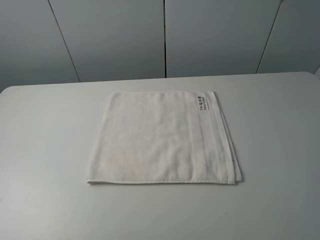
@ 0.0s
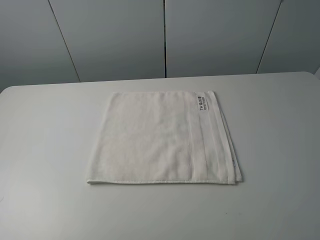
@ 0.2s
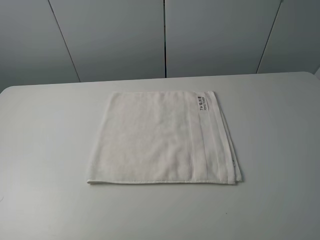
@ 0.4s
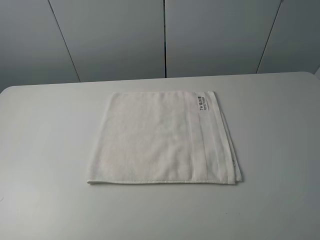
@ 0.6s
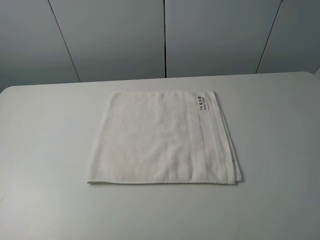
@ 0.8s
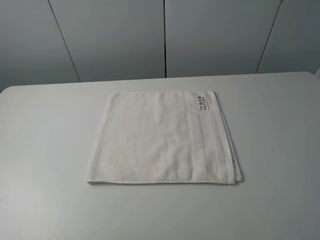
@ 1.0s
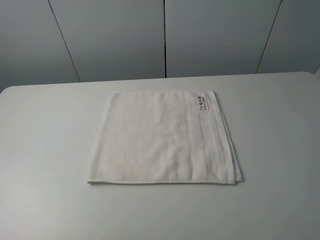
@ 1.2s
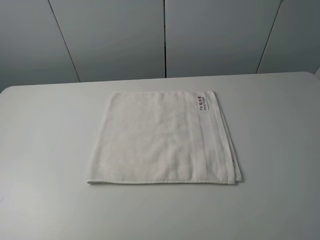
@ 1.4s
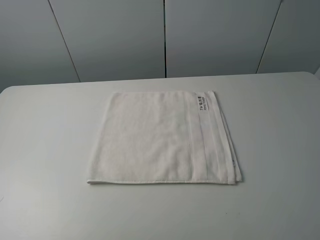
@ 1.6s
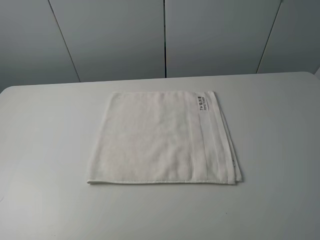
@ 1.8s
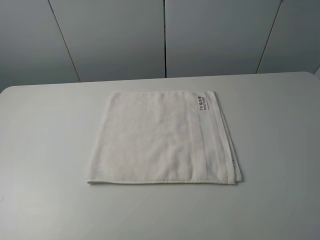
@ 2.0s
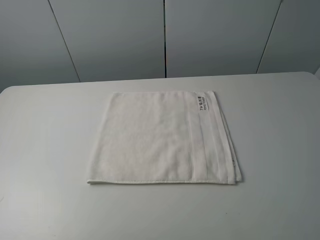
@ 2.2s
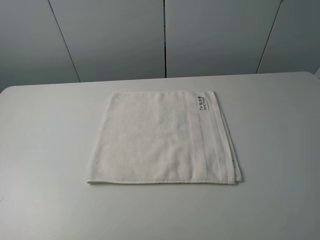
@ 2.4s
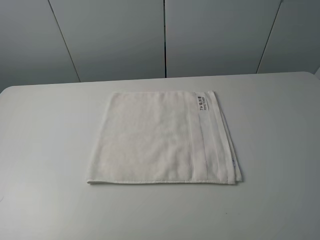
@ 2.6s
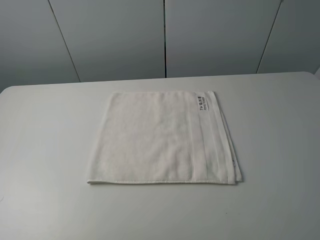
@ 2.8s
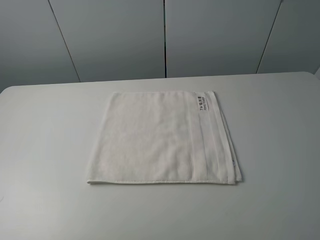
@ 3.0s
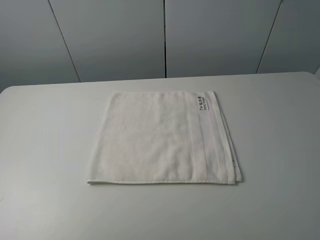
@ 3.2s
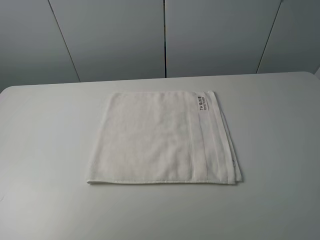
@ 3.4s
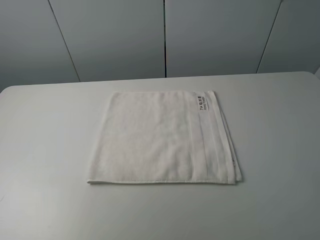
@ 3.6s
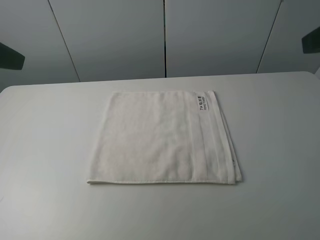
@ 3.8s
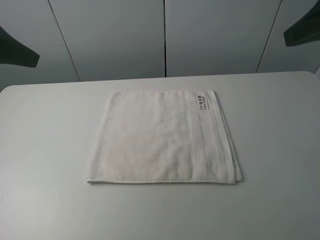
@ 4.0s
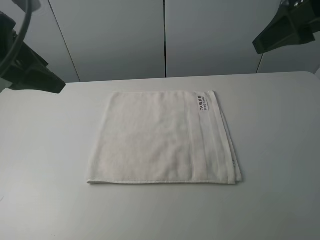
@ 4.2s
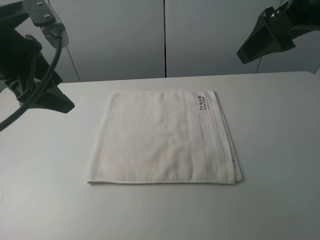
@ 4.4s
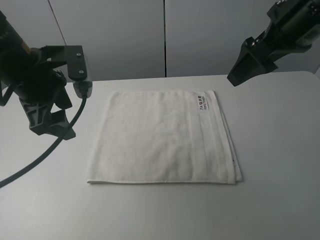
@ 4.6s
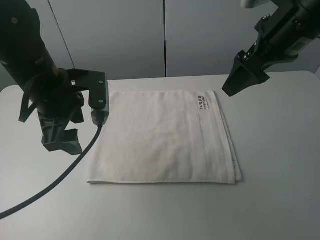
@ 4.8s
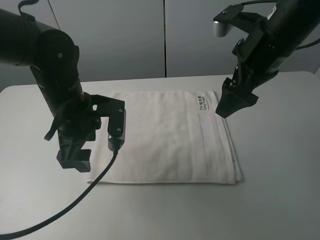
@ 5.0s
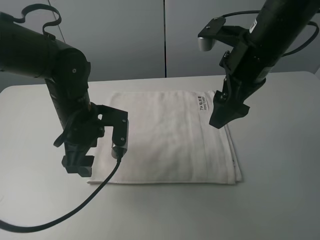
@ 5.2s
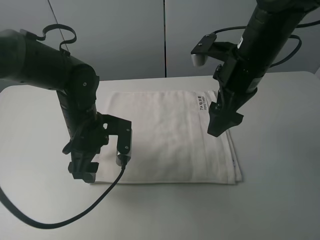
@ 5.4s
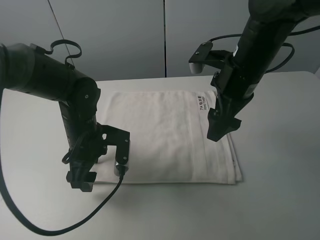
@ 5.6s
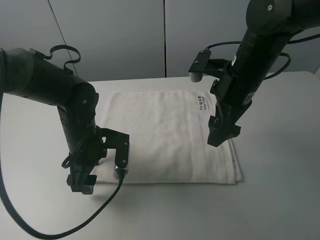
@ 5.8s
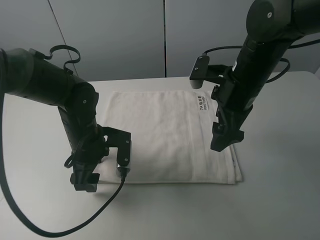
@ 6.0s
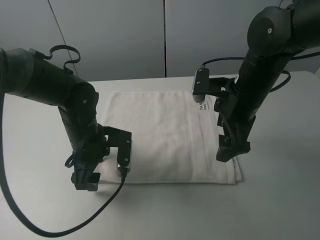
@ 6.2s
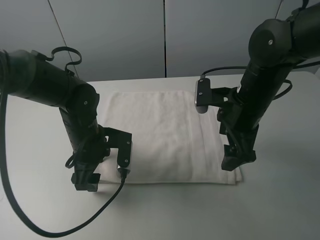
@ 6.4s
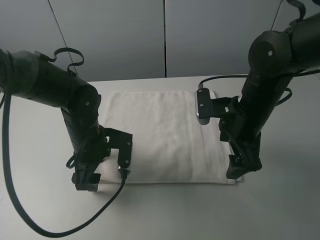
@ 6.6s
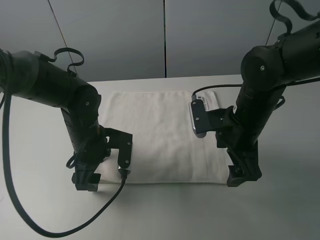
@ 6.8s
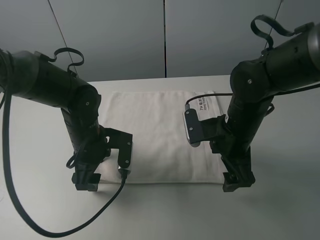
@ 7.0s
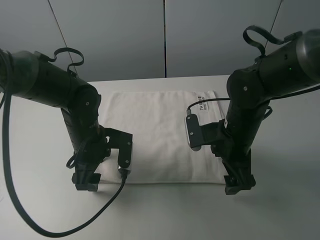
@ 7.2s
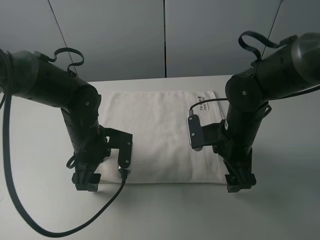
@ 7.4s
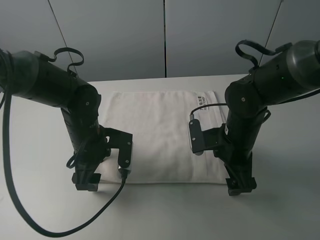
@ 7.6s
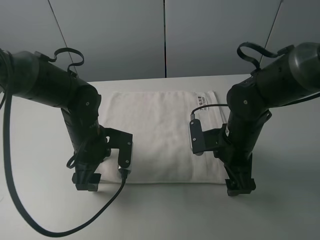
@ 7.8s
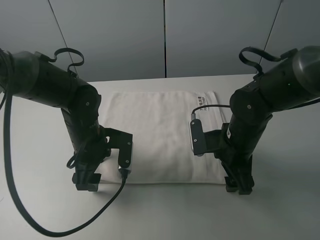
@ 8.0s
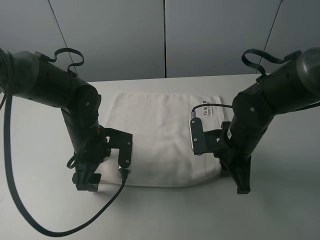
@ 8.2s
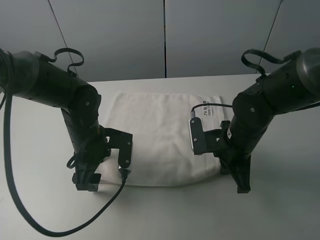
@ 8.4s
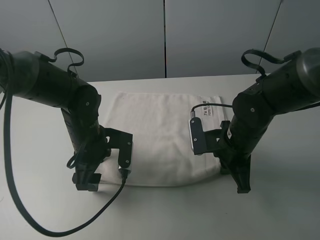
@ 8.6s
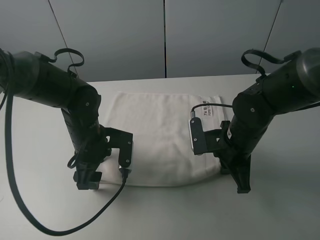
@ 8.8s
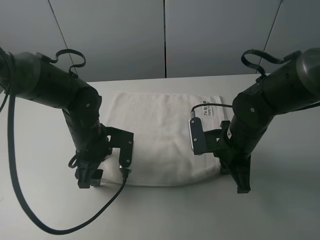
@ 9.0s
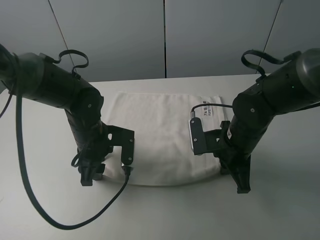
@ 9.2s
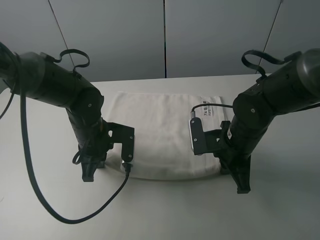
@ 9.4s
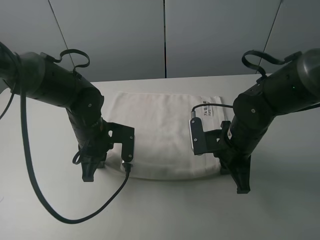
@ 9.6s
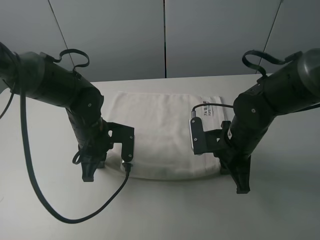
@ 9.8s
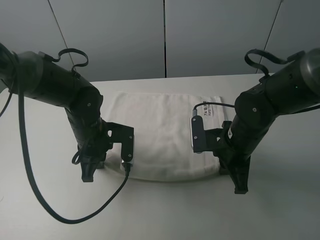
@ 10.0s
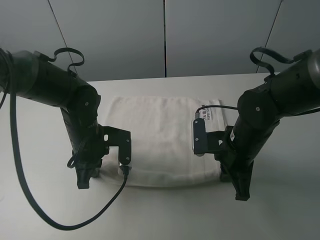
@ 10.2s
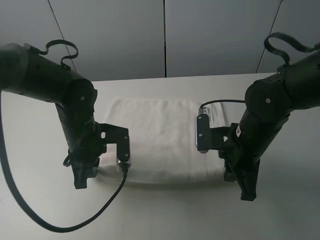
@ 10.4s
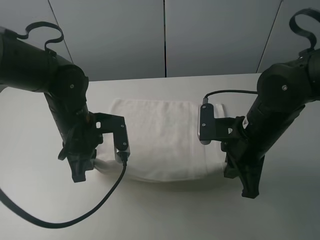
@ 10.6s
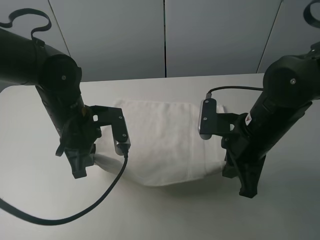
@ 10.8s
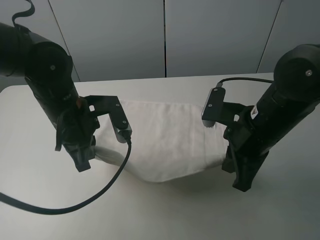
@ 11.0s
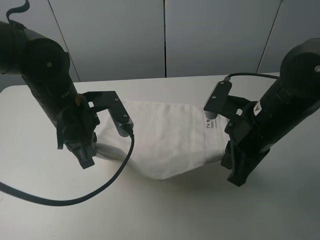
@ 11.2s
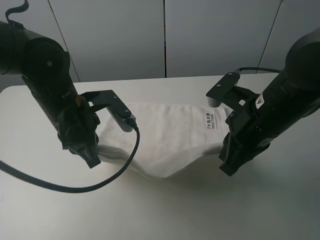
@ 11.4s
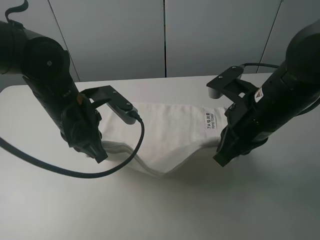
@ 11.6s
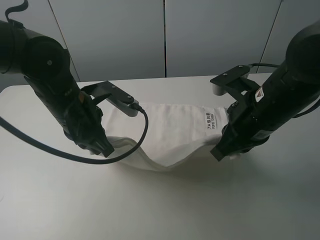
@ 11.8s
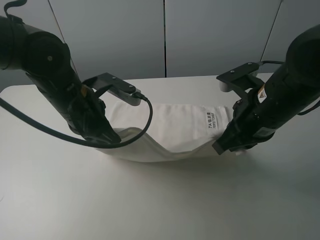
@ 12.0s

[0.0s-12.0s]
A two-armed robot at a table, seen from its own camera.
Task of the whole recording: fold the towels on the table.
Step, 0.0s to 8.8s: Grasp the white towel with the right gripper.
Step, 9.0s to 9.4s: Grasp the white towel with the left gripper.
0.0s to 1.6s: The two grippers keep their place.
3.0s to 4.4s: The right gripper shifts approximately 25 cm forward. Meanwhile the left gripper travels forward and to the right by about 25 cm.
4.4s to 6.0s: The left gripper moves downward, approximately 20 cm, while the right gripper shifts approximately 15 cm downward and to the left.
6.0s to 7.6s: The right gripper shifts some 10 cm downward.
7.6s to 9.0s: The right gripper closes up.
9.0s to 10.4s: The left gripper closes its fingers.
10.4s to 12.0s: The two grippers go roughly 5 cm upward.

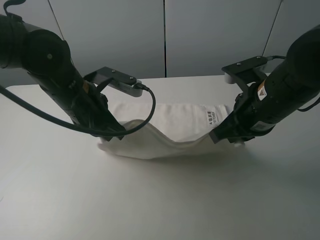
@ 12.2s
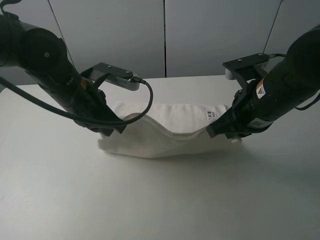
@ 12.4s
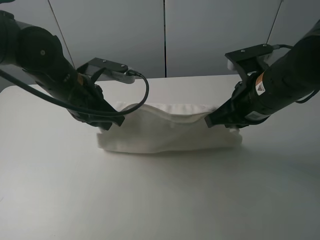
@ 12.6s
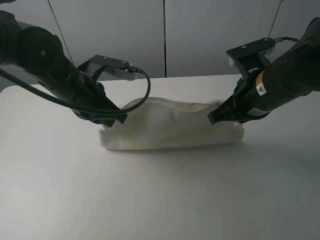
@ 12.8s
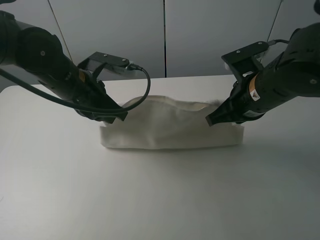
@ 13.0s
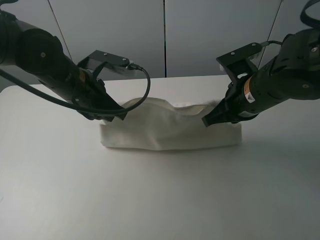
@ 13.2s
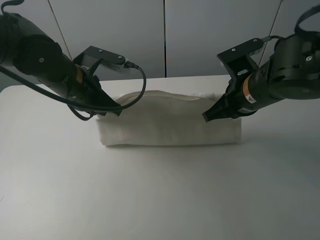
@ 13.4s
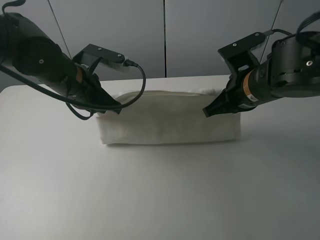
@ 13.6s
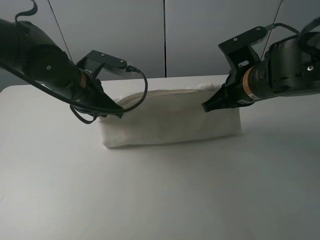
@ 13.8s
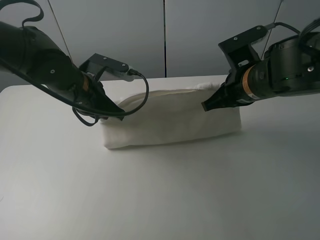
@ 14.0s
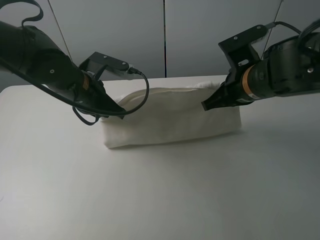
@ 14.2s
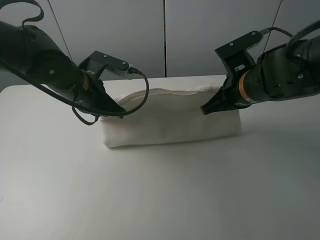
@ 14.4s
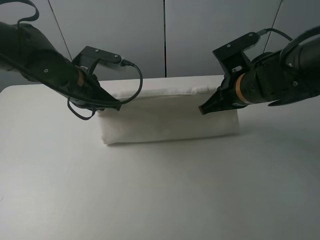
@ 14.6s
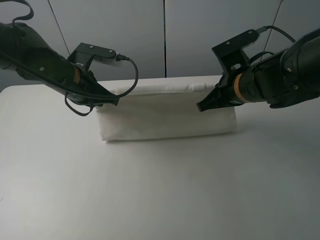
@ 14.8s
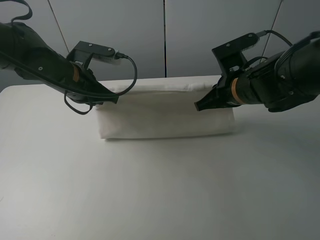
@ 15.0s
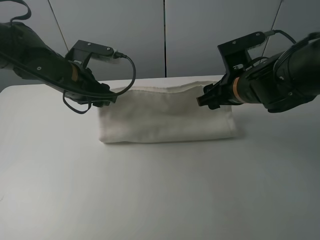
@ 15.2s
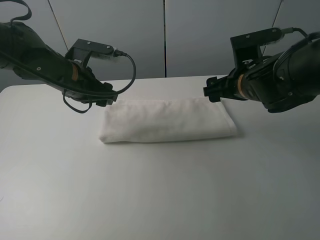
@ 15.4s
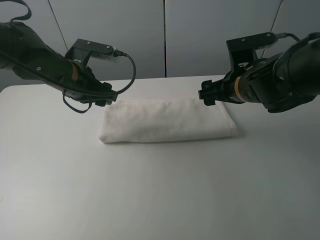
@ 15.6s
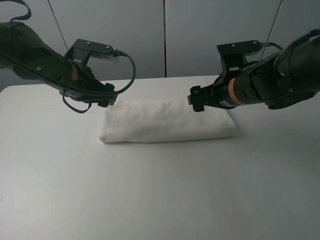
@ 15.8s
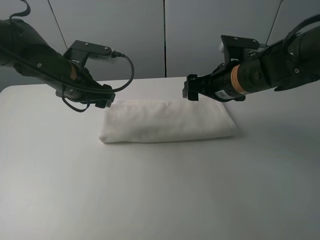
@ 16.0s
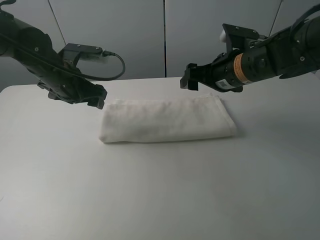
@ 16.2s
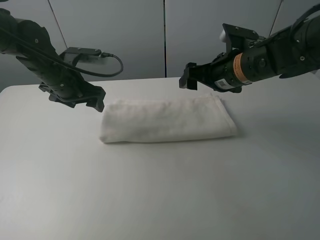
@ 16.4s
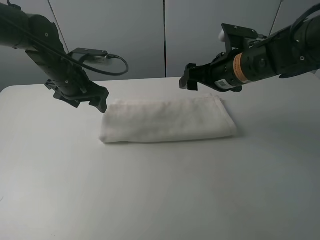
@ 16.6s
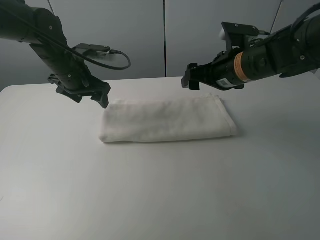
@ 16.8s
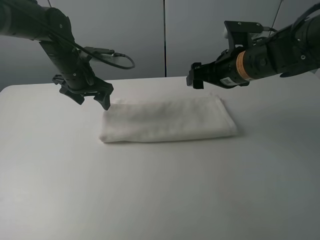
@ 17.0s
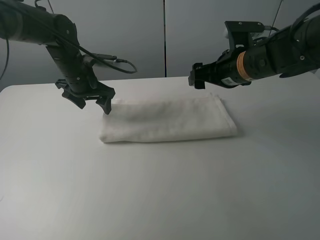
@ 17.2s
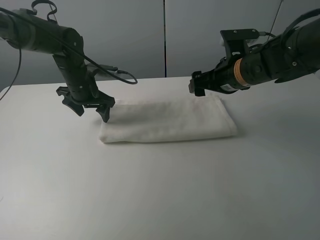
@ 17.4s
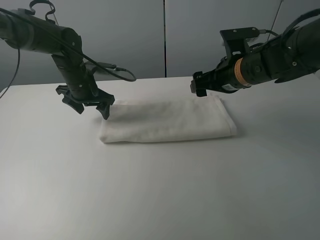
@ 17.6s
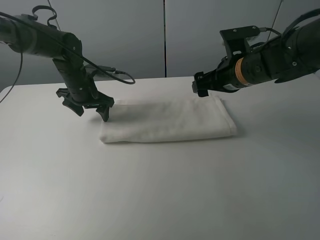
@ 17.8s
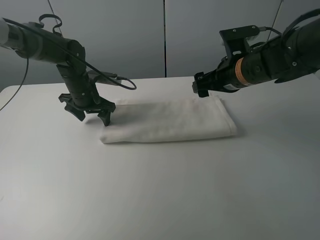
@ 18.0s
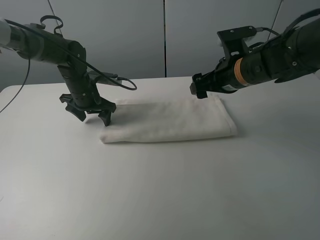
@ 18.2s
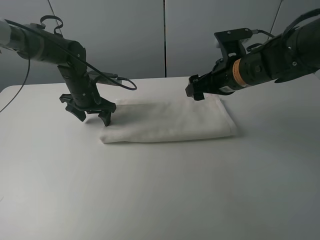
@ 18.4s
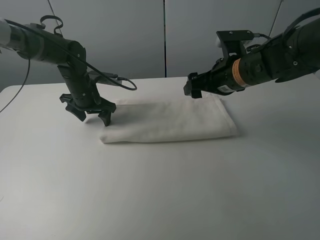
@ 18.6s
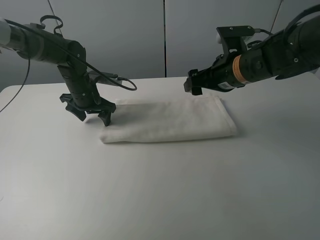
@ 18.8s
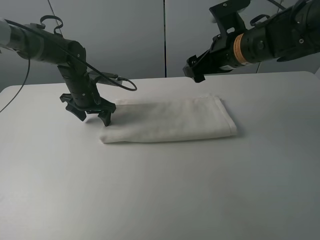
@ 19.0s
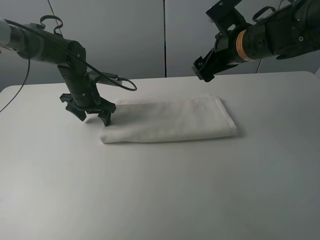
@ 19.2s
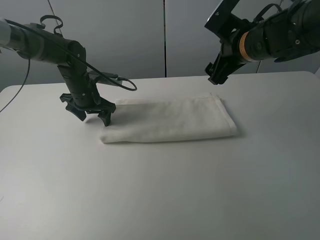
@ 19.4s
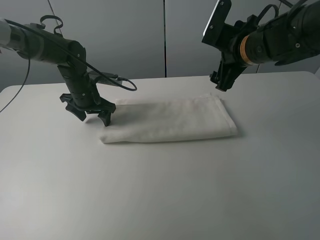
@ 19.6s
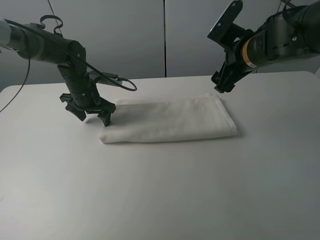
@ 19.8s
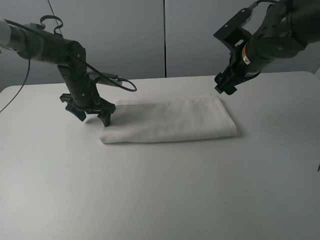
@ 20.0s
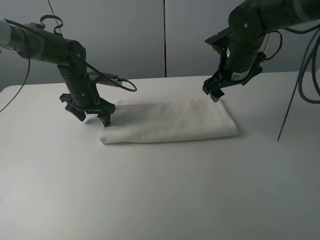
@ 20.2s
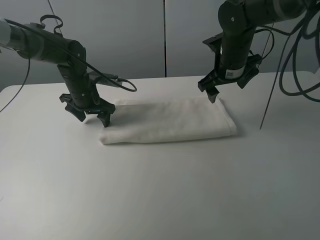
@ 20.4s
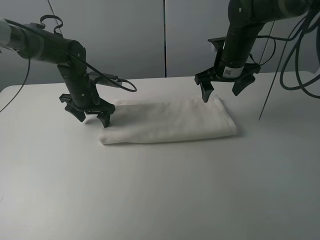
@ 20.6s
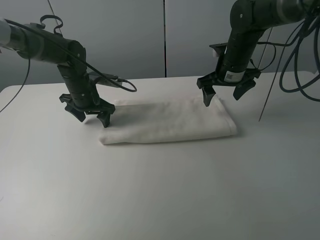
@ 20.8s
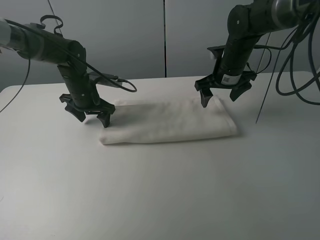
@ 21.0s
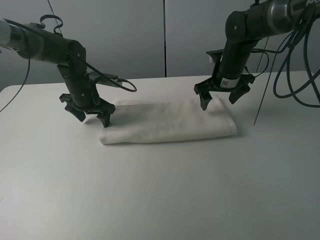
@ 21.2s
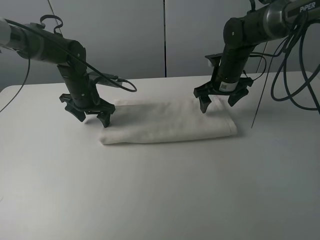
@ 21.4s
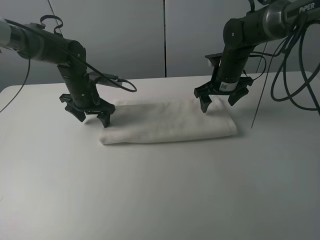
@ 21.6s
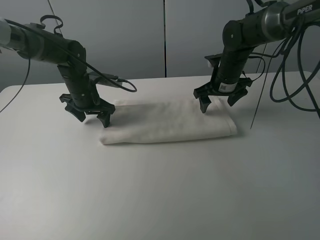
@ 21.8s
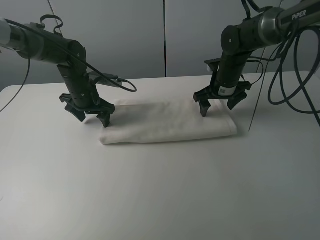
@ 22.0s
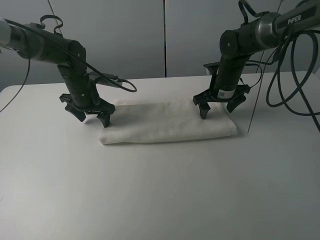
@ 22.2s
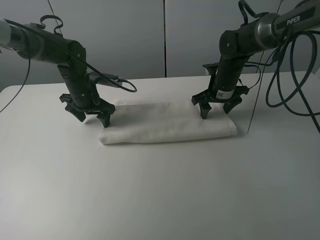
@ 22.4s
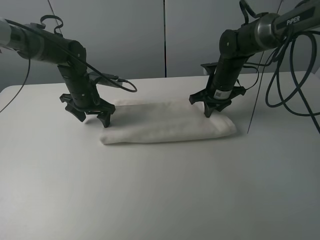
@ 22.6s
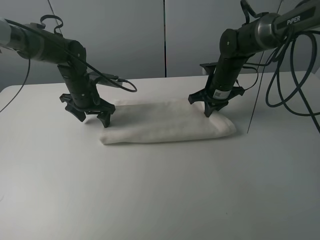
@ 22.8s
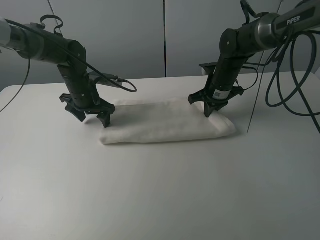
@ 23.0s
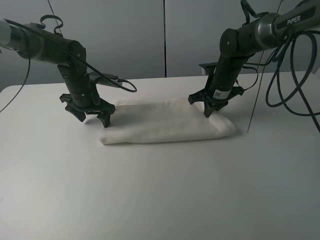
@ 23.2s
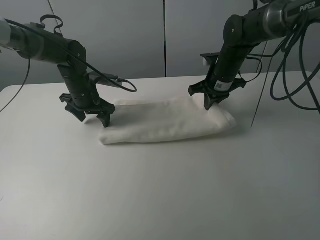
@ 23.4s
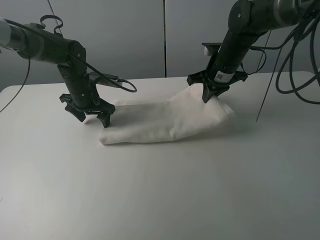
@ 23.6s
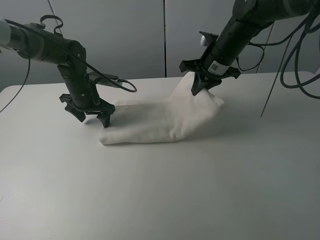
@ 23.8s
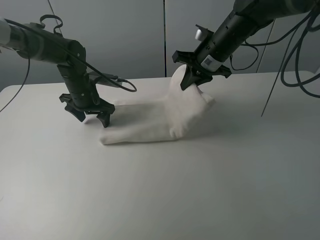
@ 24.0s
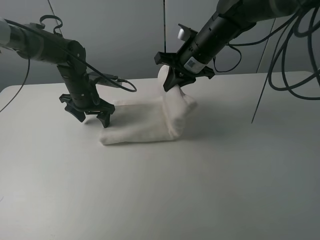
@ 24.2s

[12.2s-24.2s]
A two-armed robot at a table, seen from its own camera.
Task of the whole recording: fold the towels on the table.
Step, 12.2s to 15.8s: Fold the white towel upwards with the right gripper.
Step, 16.2s to 18.2s: Press on the white towel with the left gripper.
12.2s to 13.8s: The right gripper moves forward, about 5 cm.
13.8s to 15.2s: The right gripper opens, while the left gripper opens.
15.2s to 16.6s: The left gripper ends up some 5 cm from where it was.
16.6s to 18.2s: The left gripper travels downward by some 5 cm.
19.8s to 21.2s: The right gripper is displaced forward and downward by some 10 cm.
21.2s to 22.6s: The right gripper closes its fingers.
22.6s to 24.2s: The right gripper heads upward and to the left, covering about 10 cm.
